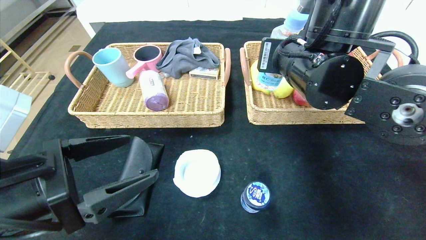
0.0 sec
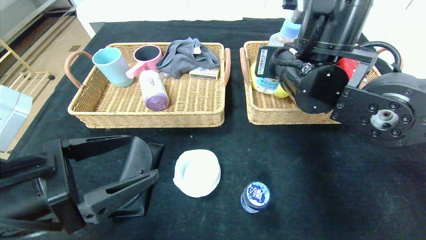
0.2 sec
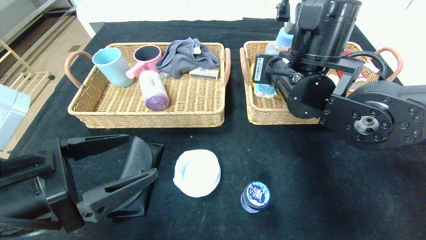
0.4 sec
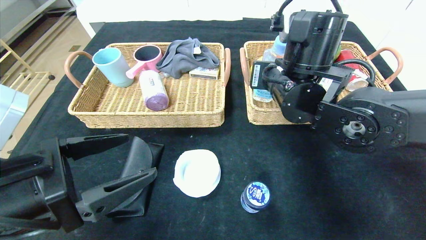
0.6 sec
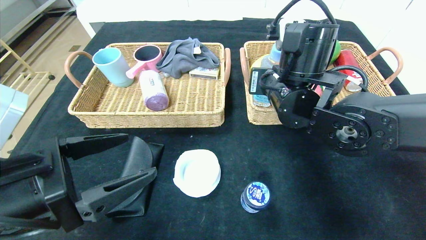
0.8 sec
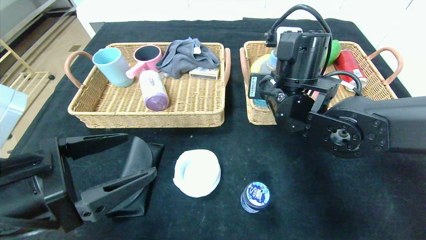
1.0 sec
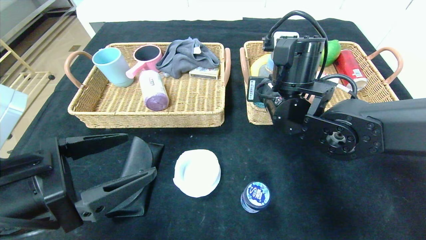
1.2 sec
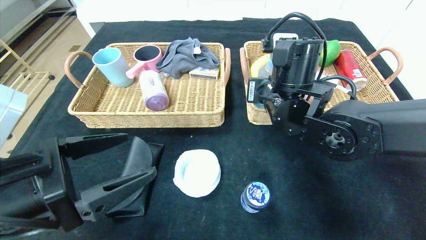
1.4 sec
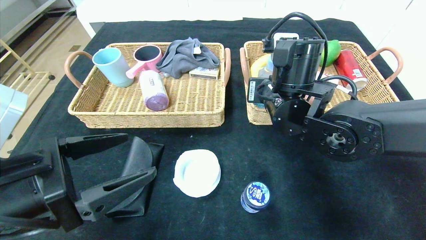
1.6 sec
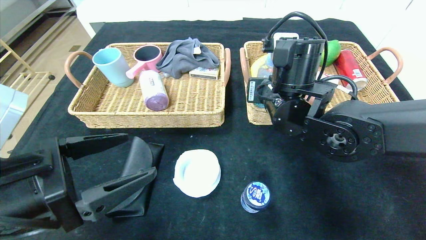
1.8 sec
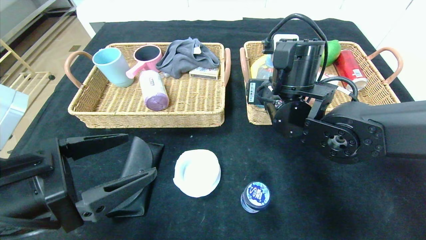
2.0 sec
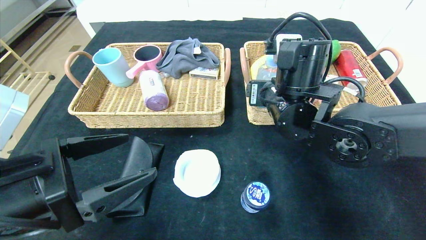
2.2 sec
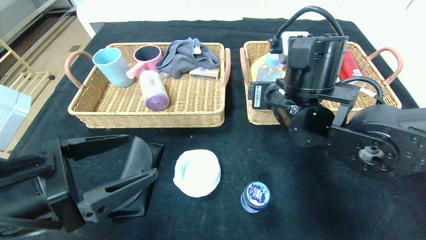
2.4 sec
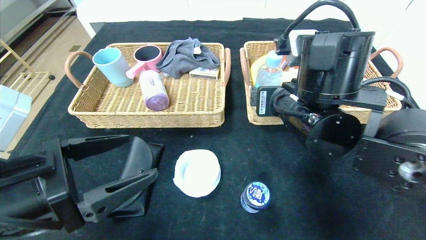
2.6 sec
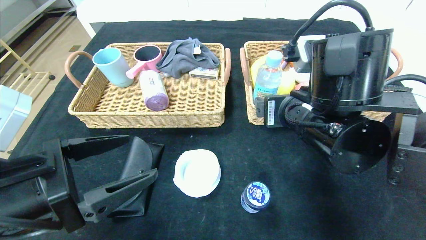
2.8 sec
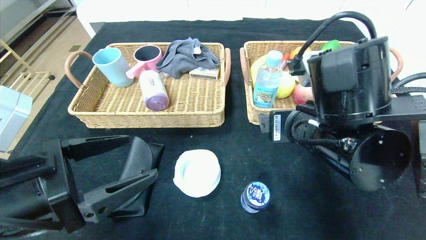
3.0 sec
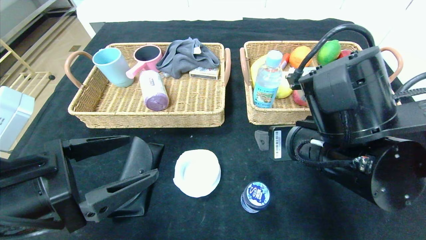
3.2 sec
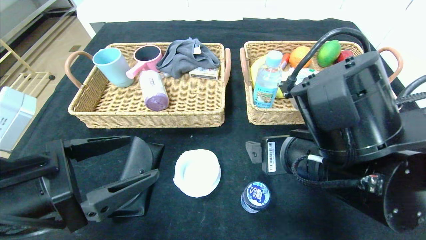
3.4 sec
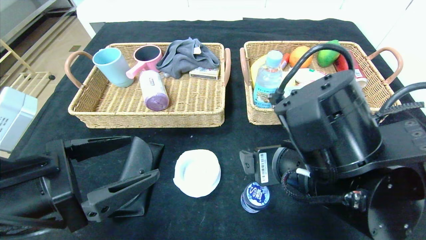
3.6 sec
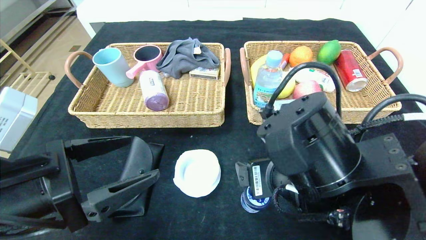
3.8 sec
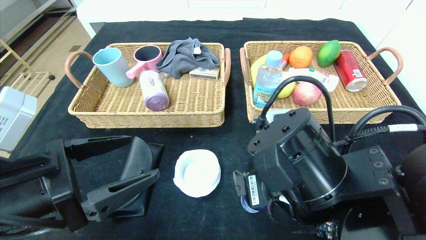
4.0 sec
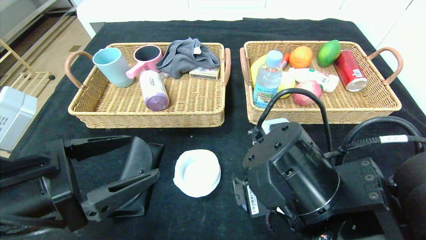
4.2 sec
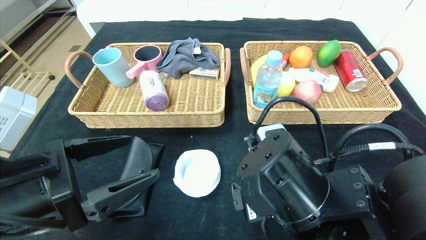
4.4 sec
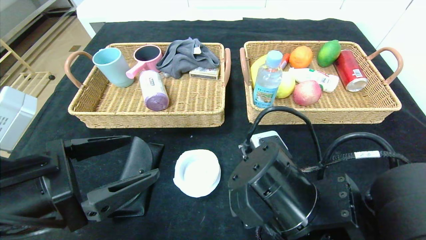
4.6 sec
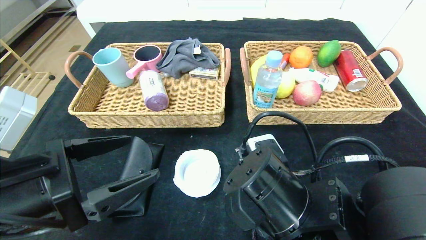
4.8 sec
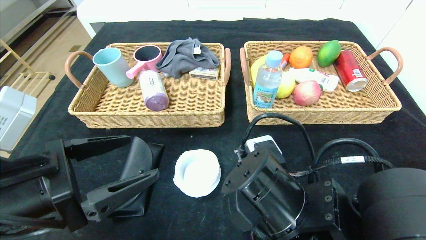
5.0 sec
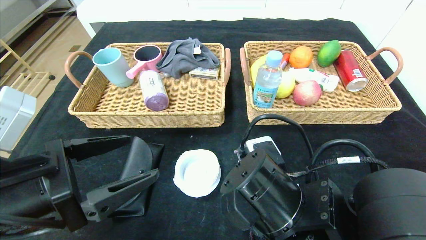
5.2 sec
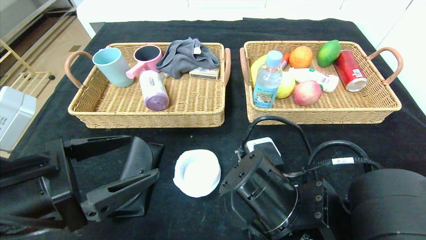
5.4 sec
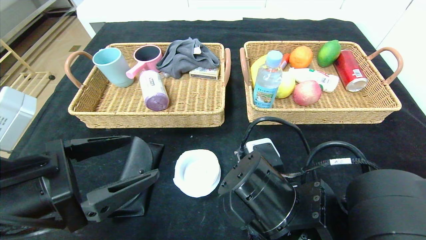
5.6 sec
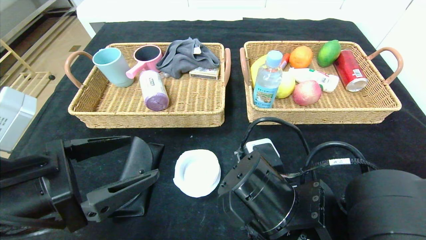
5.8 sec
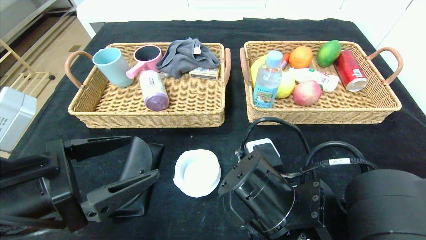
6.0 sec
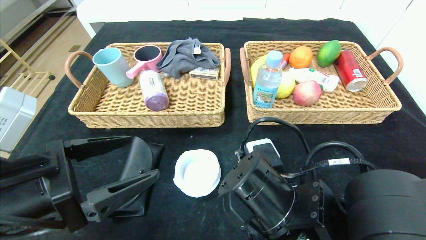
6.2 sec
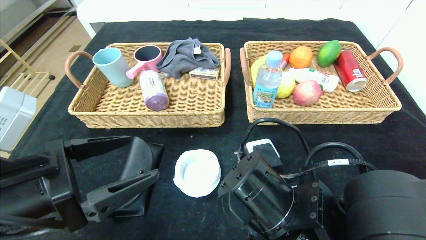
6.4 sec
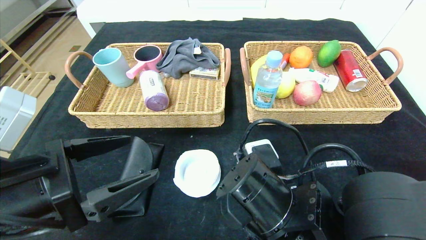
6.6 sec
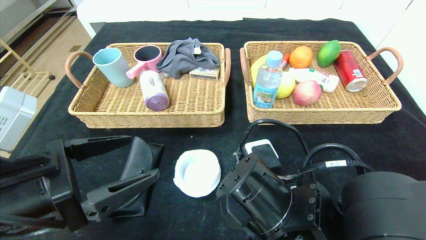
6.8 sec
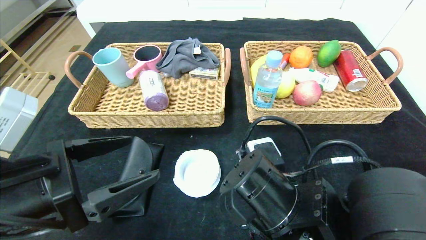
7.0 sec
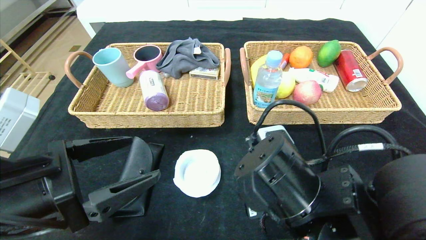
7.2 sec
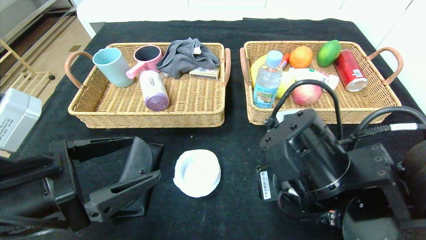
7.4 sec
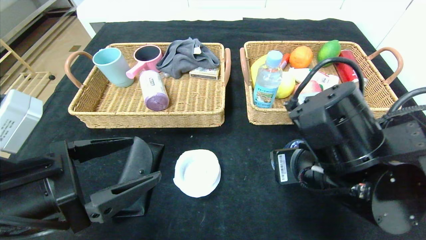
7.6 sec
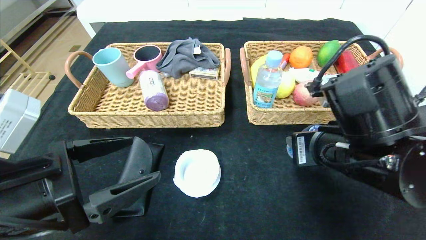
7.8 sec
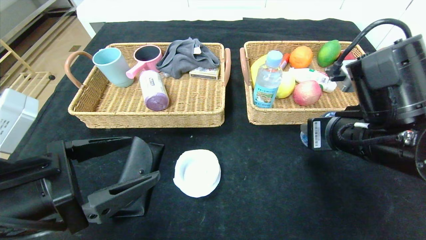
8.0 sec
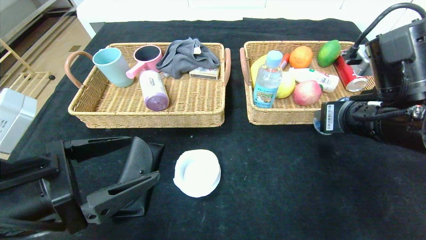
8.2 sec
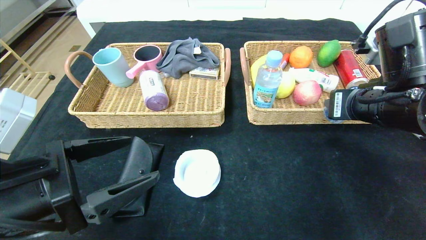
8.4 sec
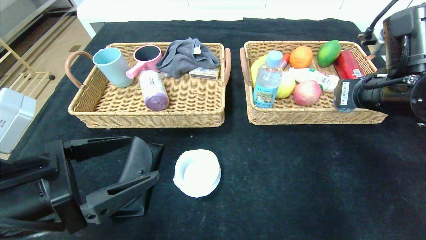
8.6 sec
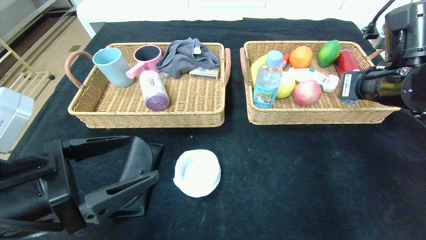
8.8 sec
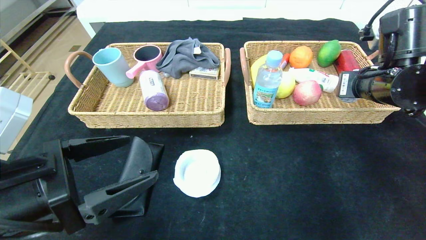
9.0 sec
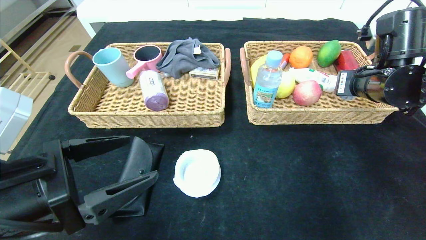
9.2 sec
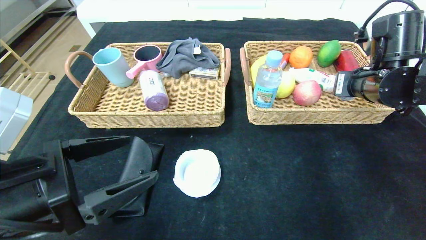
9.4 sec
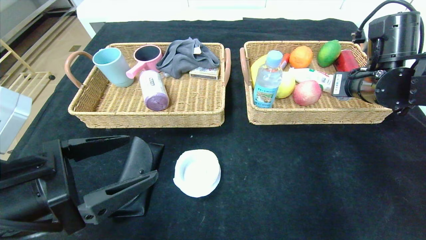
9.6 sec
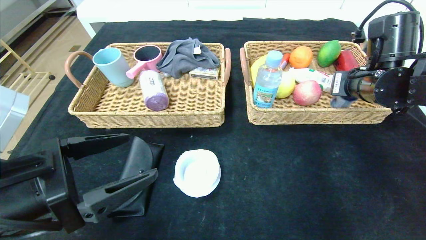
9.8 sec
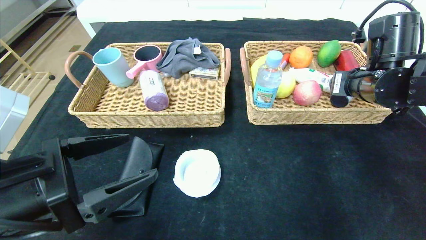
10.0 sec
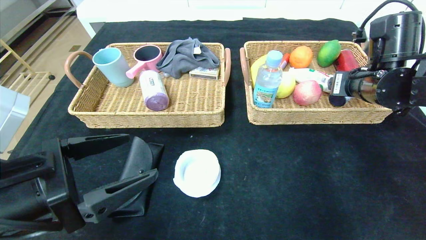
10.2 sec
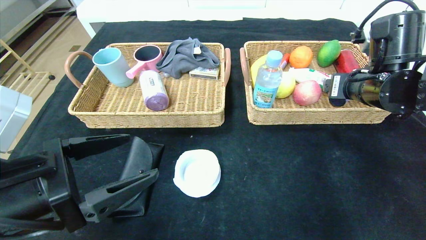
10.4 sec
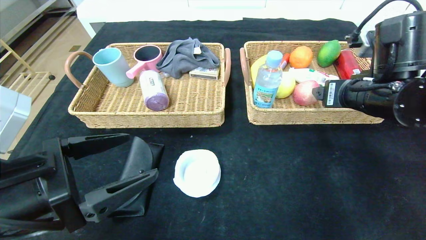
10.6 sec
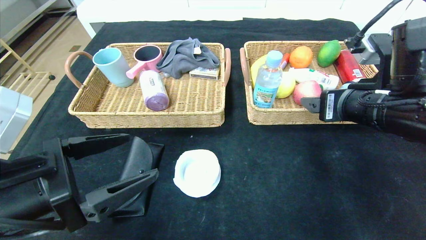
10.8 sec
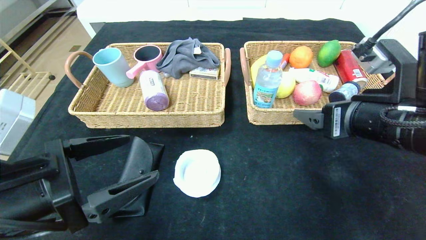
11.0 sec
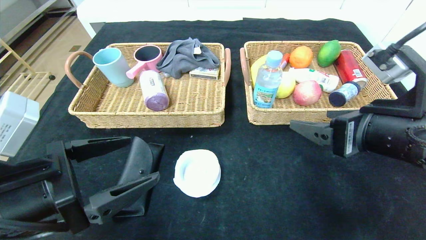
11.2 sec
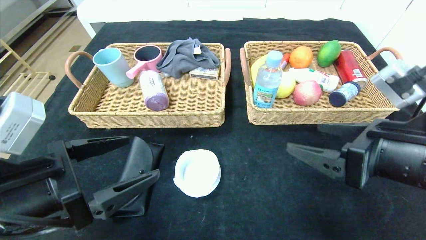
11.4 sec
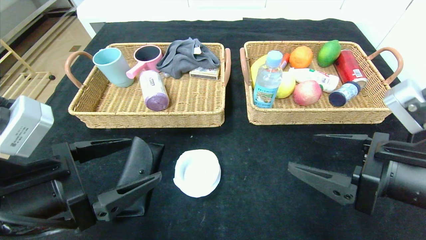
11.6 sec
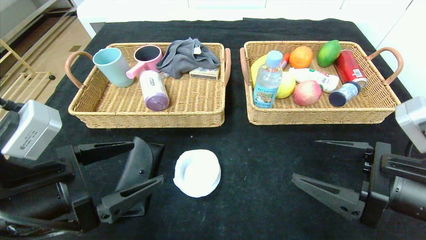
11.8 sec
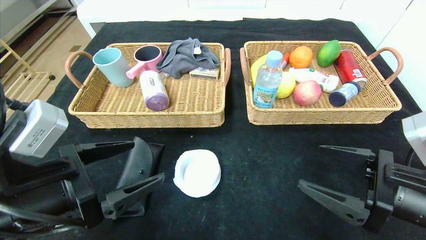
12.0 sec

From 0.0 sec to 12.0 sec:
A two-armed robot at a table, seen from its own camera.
Step, from 0.0 sec to 2.8 sec: Grasp the soda water and put it in the right basket.
Step, from 3.0 sec to 10.4 sec: Grasp the round chewing gum and put it in the right basket.
From 0.0 sec to 1.6 sec: The right gripper is displaced downward by some 5 cm.
From 1.6 sec to 3.0 sec: The right gripper goes roughly 10 cm backward, and opens up.
From 3.0 sec to 4.4 sec: The right gripper goes roughly 10 cm downward and backward.
From 4.4 sec to 6.0 sec: The right gripper closes its fingers.
From 6.0 sec to 7.6 sec: The right gripper travels to the right and upward by about 10 cm.
From 7.6 sec to 9.0 sec: The right gripper shifts some 20 cm to the right, forward and upward.
From 9.0 sec to 10.4 sec: The right gripper opens its fingers.
From 10.4 sec to 12.0 sec: The right gripper goes some 15 cm backward and downward.

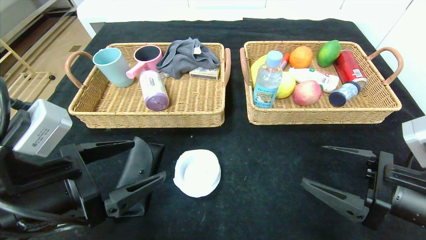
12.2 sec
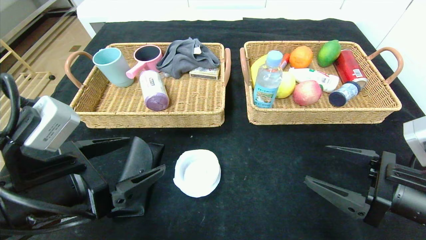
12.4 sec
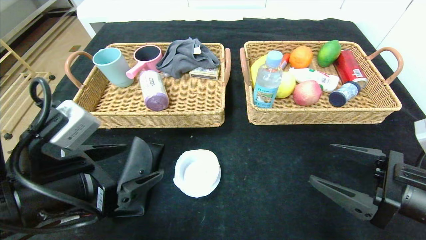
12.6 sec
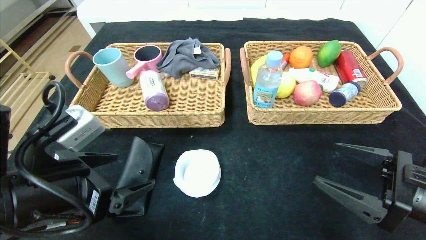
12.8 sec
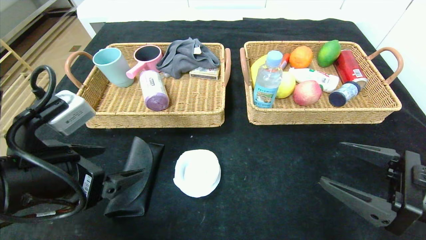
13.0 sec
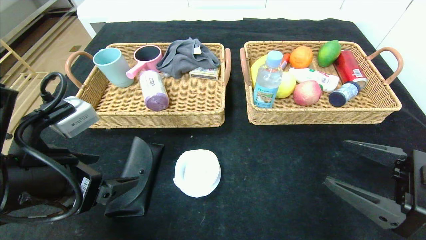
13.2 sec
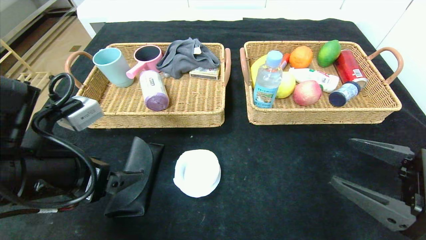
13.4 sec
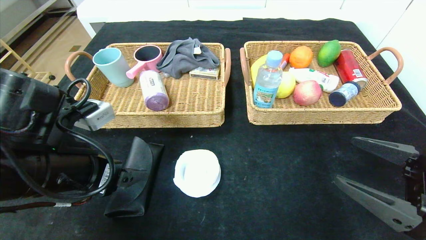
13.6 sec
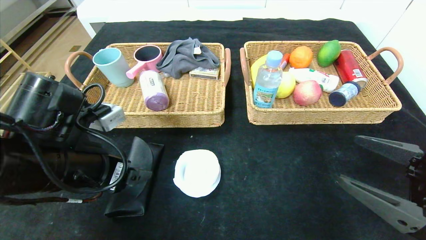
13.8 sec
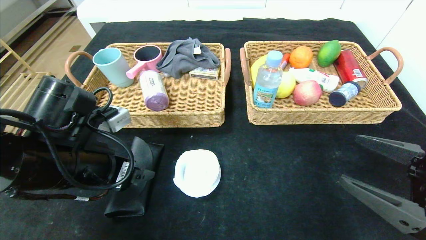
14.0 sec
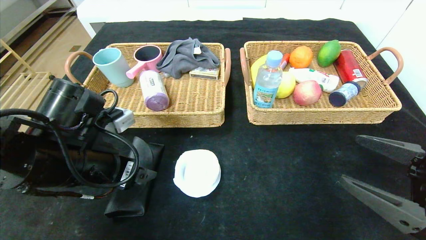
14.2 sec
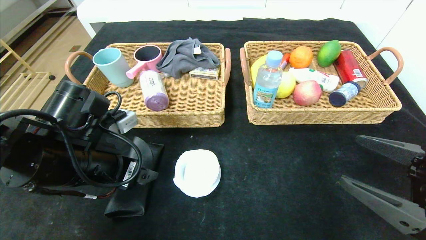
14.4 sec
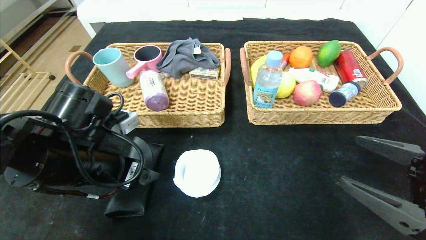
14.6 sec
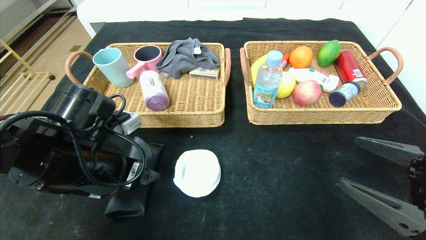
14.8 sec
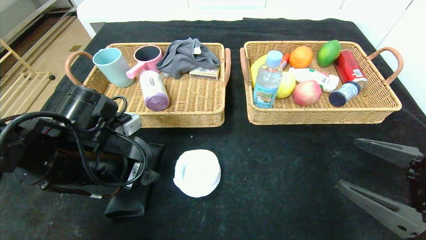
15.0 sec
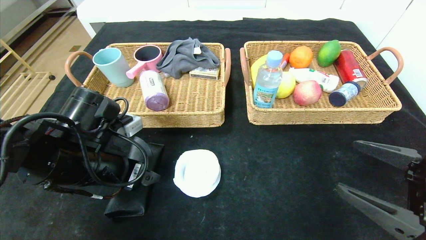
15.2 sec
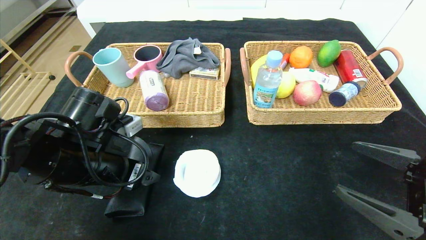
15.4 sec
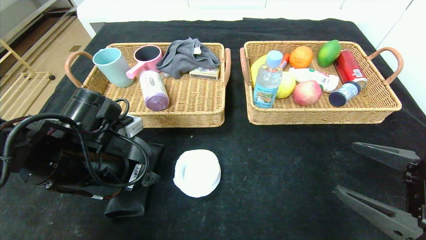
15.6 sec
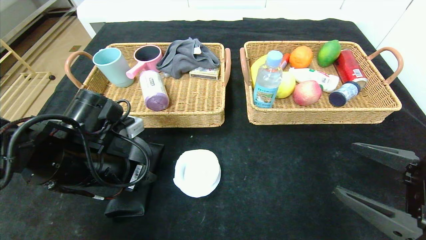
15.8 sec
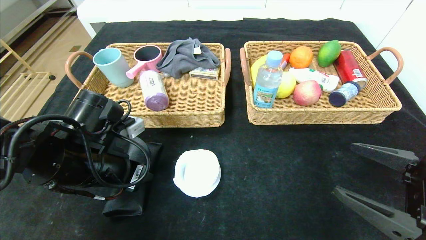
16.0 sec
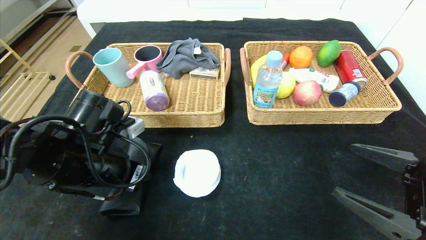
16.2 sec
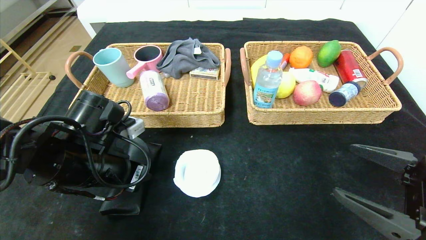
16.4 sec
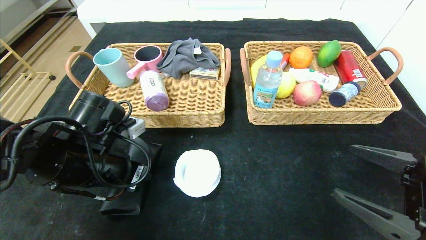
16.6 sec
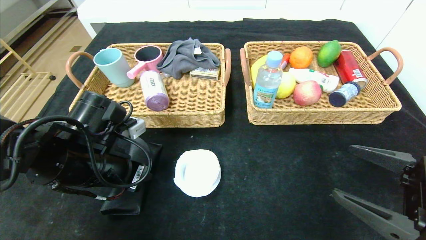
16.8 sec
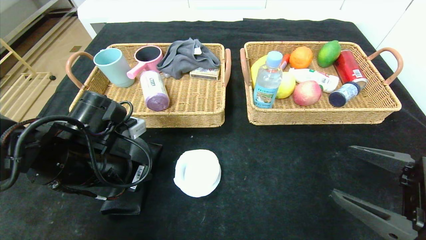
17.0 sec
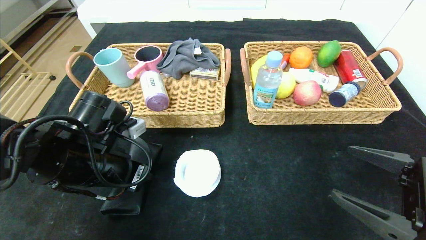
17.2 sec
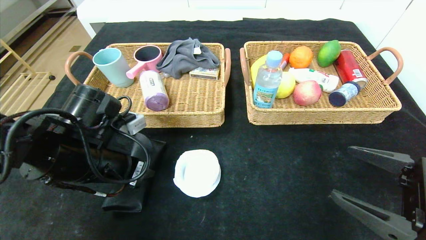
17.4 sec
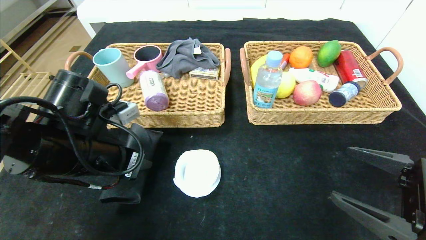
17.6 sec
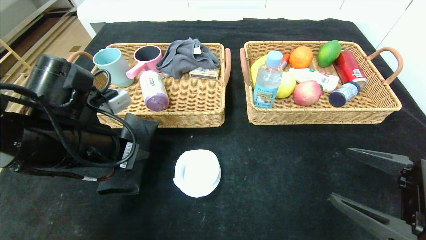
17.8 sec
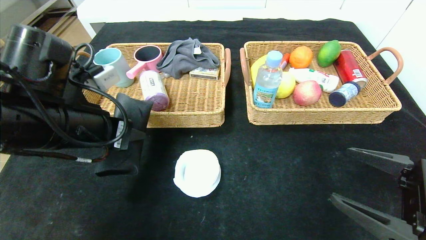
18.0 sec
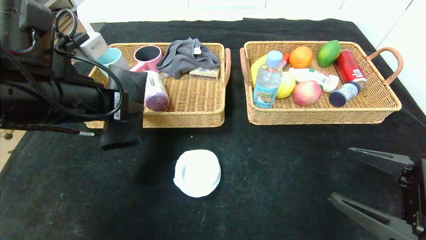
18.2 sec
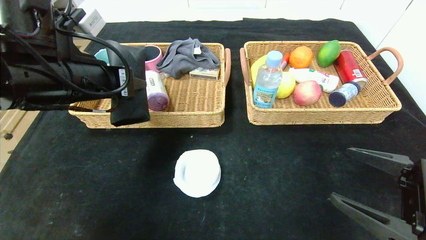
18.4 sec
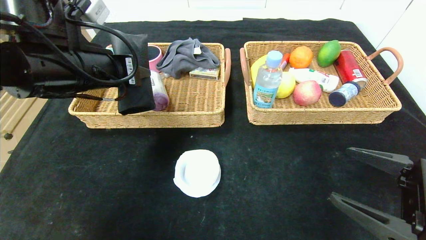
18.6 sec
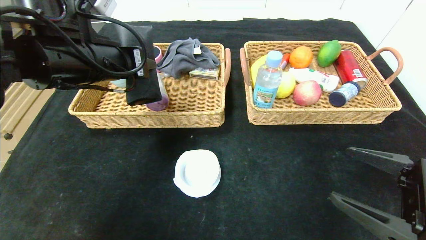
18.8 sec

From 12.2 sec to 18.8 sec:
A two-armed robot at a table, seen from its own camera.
From 12.2 sec to 13.8 sec: The left gripper heads forward, covering roughly 5 cm.
From 13.8 sec to 15.4 sec: There are only small adjustments of the grippers.
From 15.4 sec to 17.2 sec: The left gripper closes up.
From 17.2 sec to 18.8 sec: The left gripper heads upward, covering some 15 cm.
